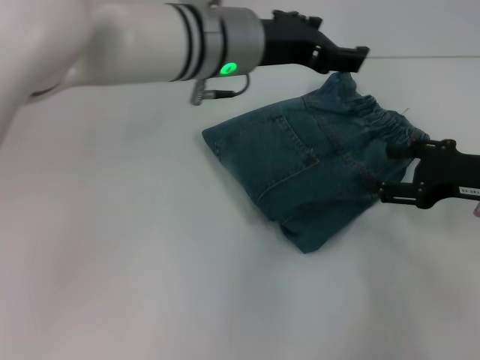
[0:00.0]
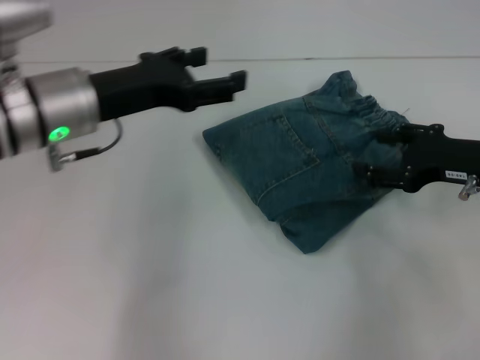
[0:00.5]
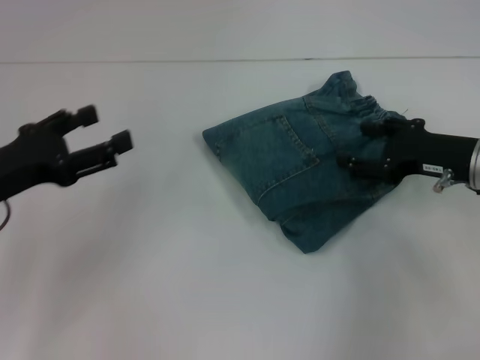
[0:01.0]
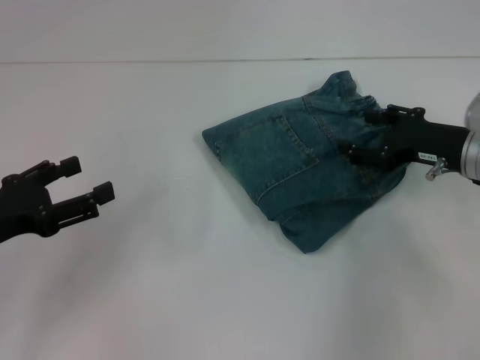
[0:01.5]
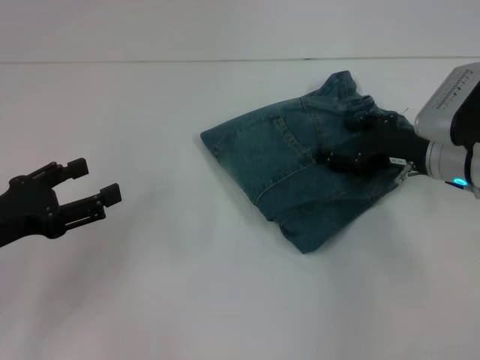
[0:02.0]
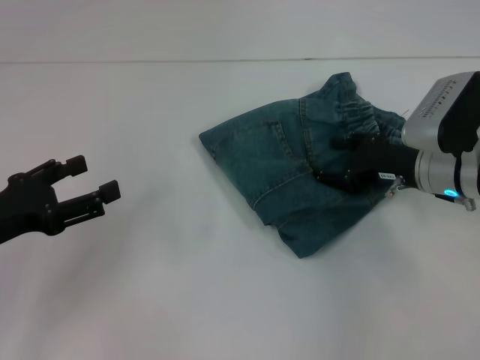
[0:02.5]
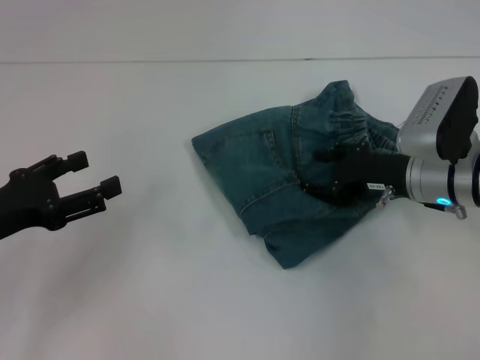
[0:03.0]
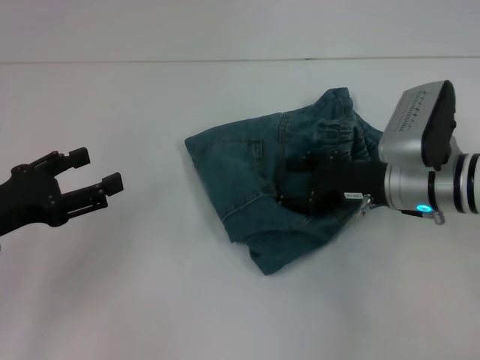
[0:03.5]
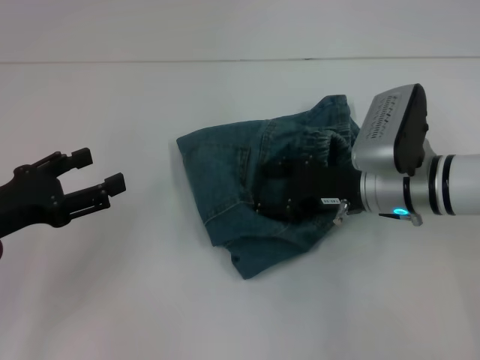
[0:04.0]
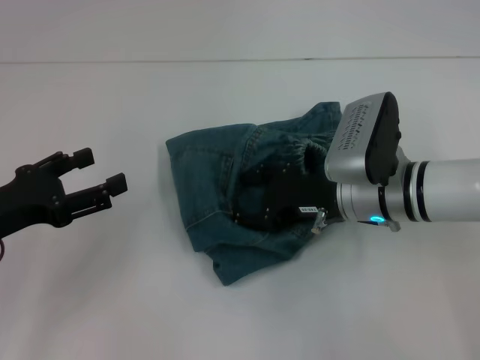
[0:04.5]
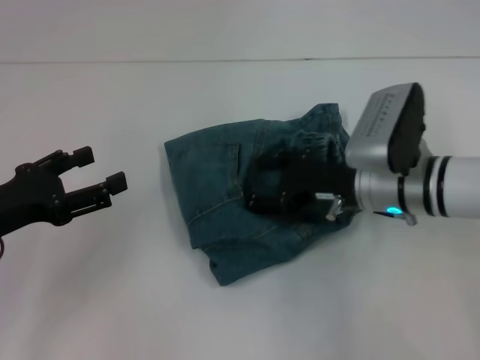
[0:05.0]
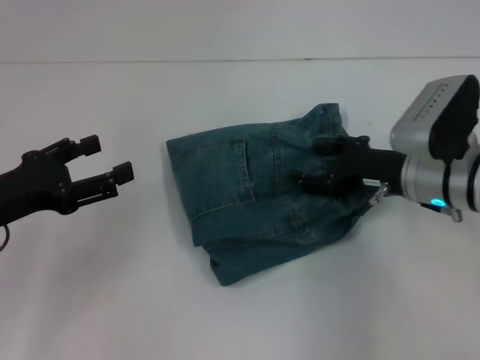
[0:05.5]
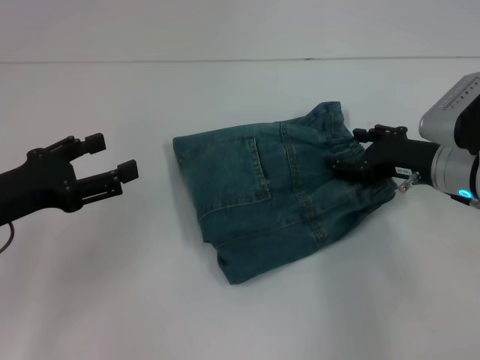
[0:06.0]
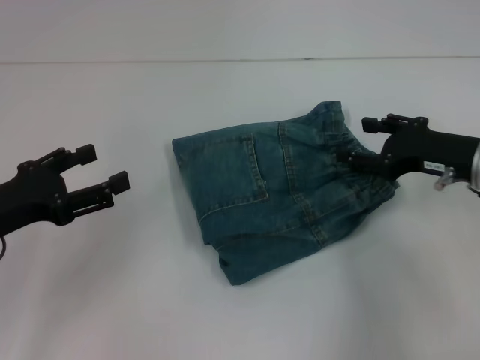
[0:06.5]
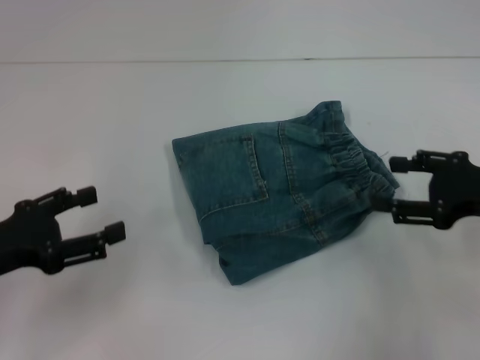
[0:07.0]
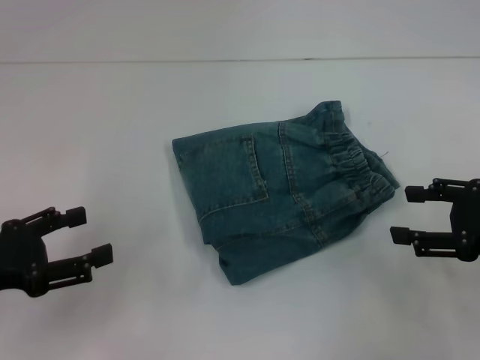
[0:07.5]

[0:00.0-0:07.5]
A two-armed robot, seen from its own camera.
Step, 0:00.0 to 0:05.0: Adjust the pants with your right hand.
0:00.0 to 0:02.0: The left gripper travels to the left, backward and downward by approximately 30 cm, while the right gripper is displaced forward and to the left by approximately 10 cm.
0:02.0 to 0:04.0: The right gripper heads to the left, covering roughly 5 cm.
0:04.0 to 0:05.5: The grippers make only small movements.
0:05.5 to 0:07.5: The right gripper moves to the right and backward, roughly 15 cm; the left gripper shifts by approximately 5 cm.

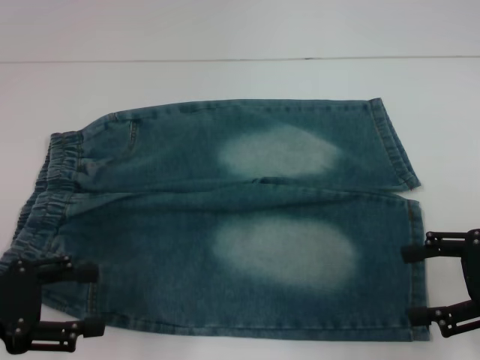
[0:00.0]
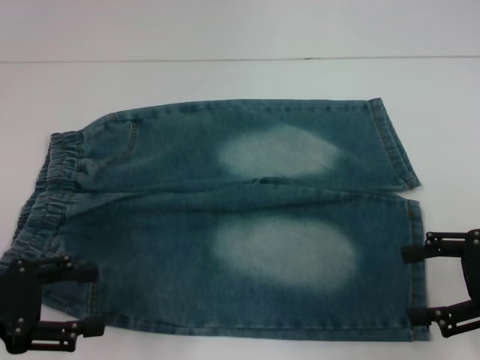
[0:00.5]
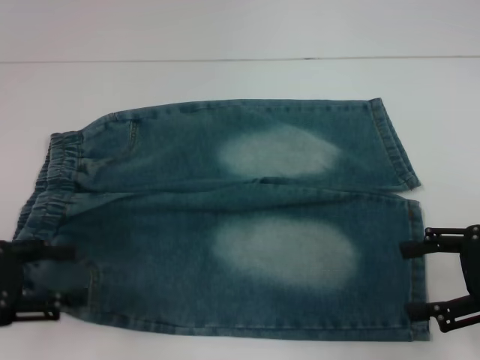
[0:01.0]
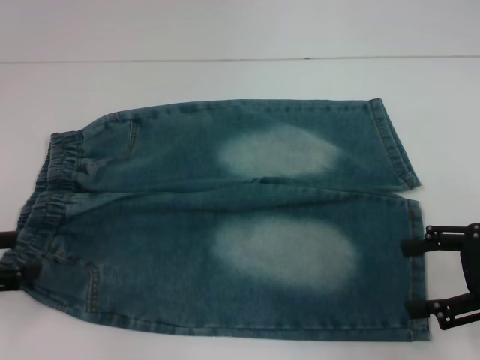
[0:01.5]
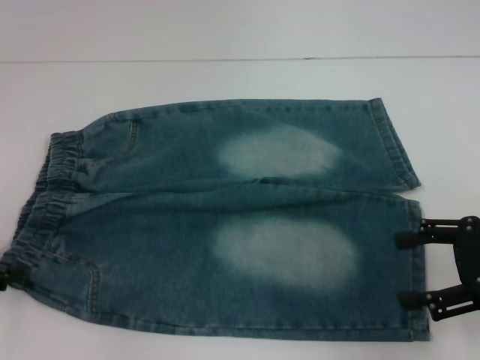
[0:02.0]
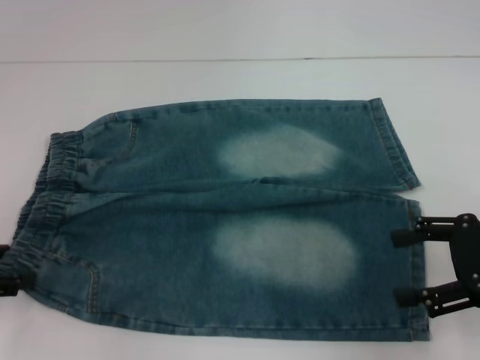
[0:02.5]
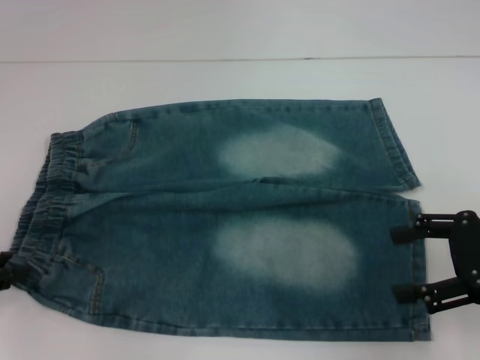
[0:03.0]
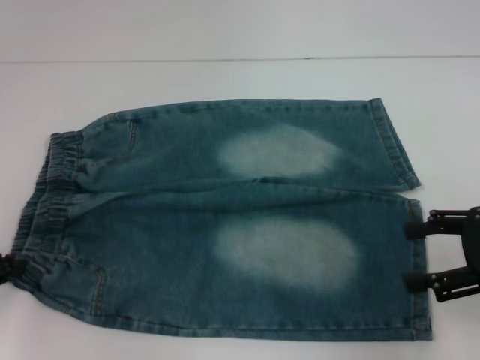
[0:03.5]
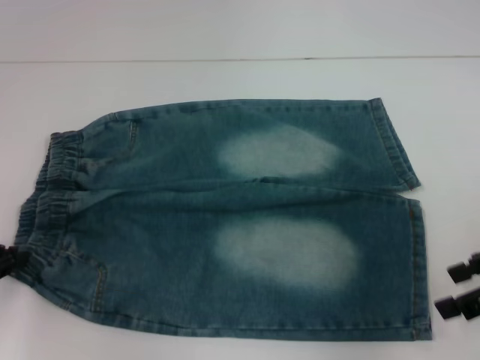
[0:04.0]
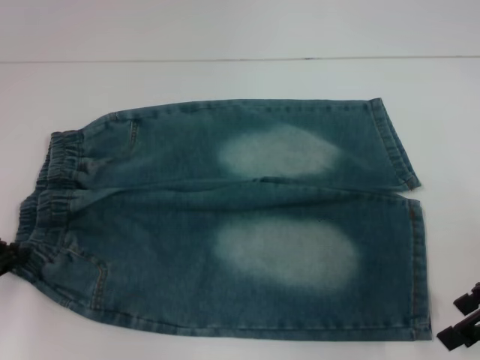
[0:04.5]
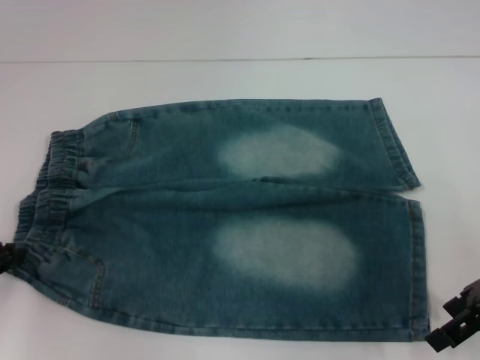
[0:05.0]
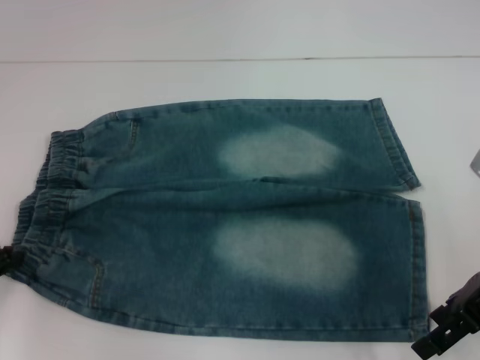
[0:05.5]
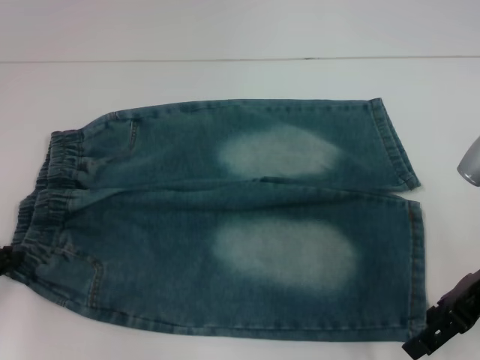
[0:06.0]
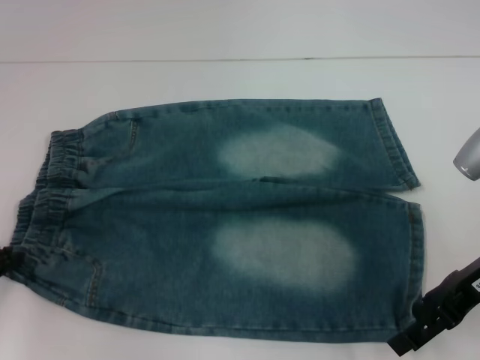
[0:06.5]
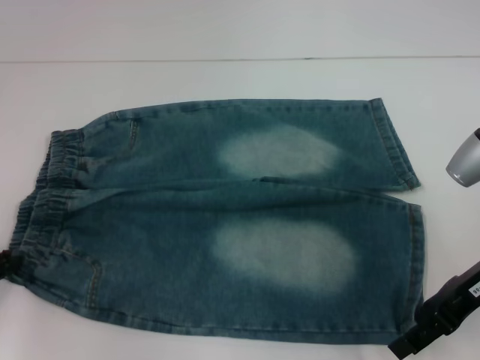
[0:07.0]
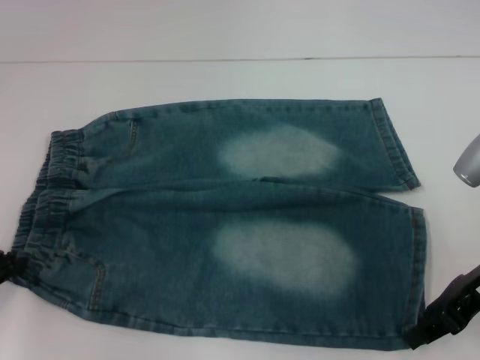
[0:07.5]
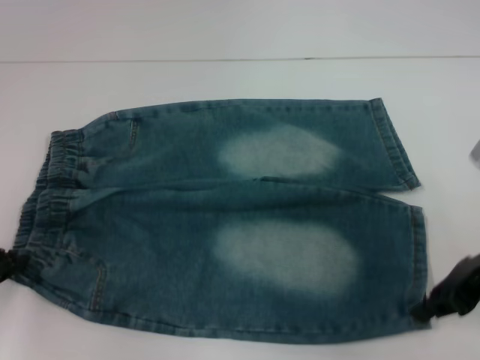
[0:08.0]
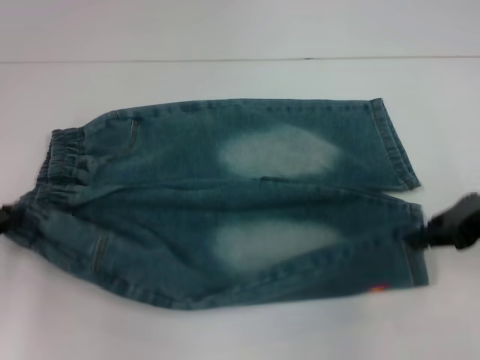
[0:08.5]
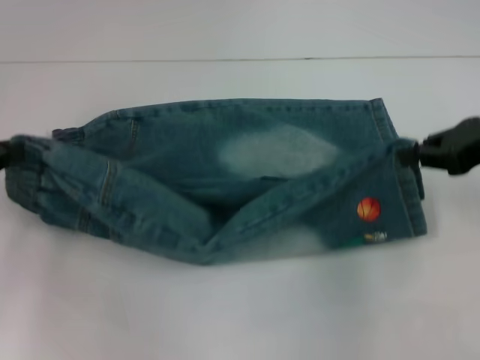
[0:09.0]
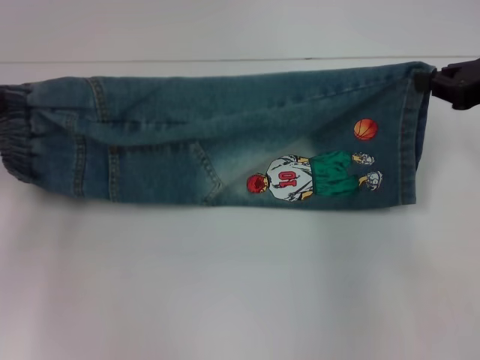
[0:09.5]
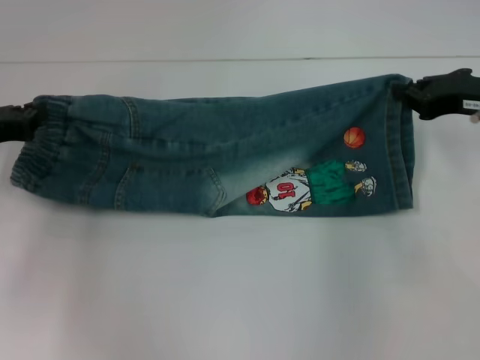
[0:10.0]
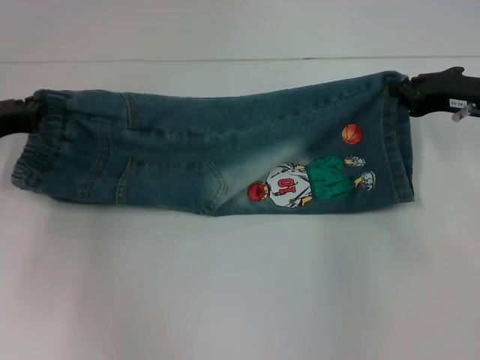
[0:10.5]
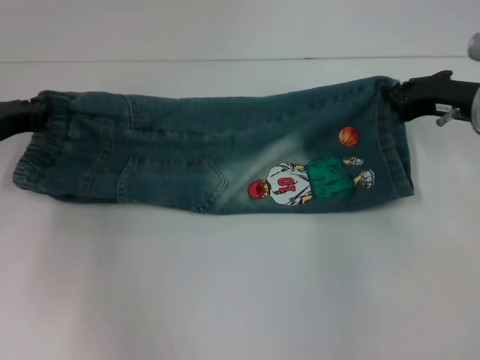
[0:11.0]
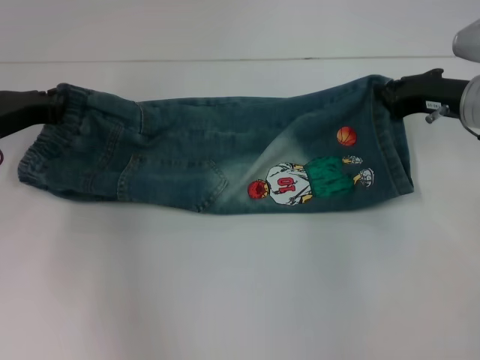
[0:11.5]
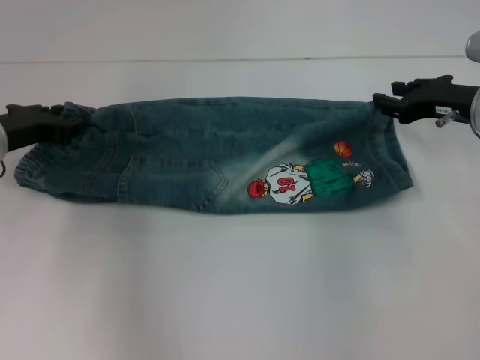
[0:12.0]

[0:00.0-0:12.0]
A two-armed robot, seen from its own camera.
Step, 0:00.0 to 0:03.5: Hold the lower left waistband with your left hand.
Step, 0:04.0 to 0:07.5: Grab the lower right pant leg with your right hand.
0:00.0 to 0:02.0: The left gripper moves to the left, approximately 5 cm.
0:02.0 to 0:04.0: The left gripper closes up.
0:04.0 to 0:06.0: The right gripper shifts some 5 cm to the left.
0:06.0 to 0:08.0: The right gripper closes its fingers.
0:08.0 to 0:10.0: Both grippers travel together forward, some 5 cm.
0:10.0 to 0:12.0: The left gripper ends up approximately 5 cm from where it was.

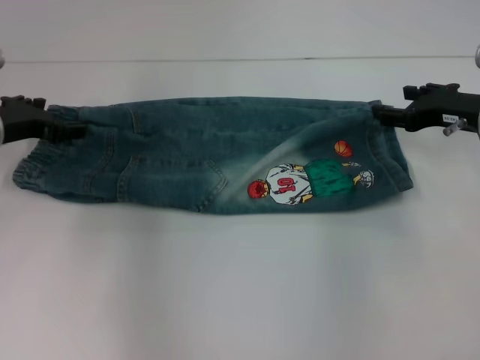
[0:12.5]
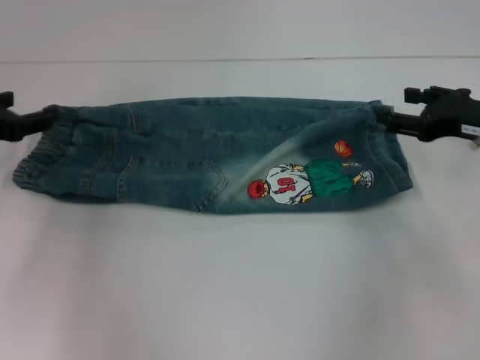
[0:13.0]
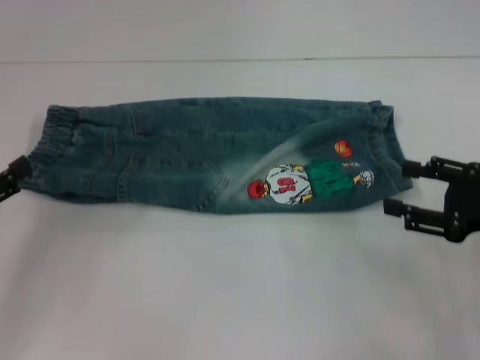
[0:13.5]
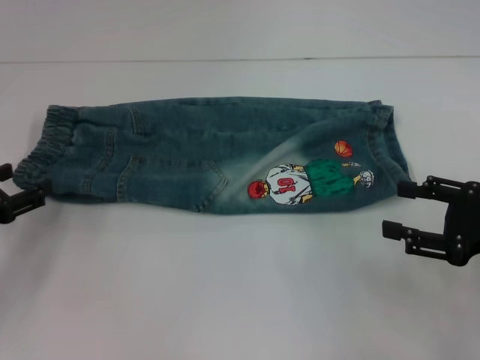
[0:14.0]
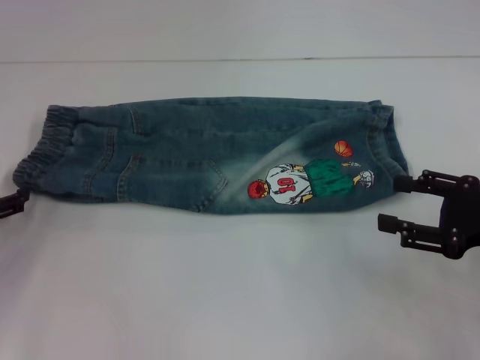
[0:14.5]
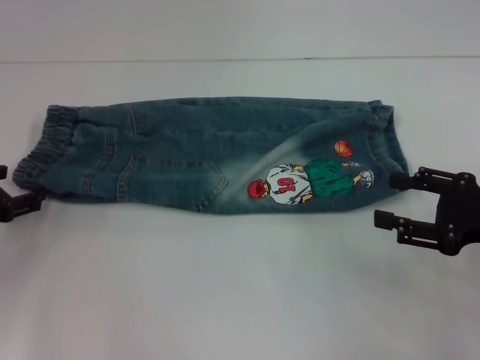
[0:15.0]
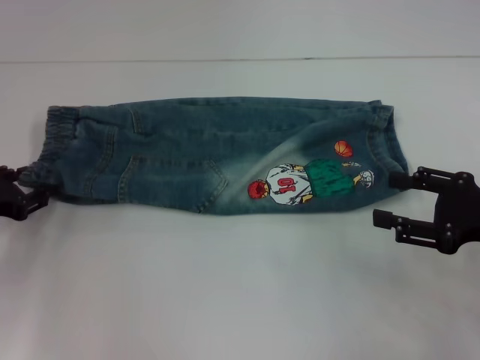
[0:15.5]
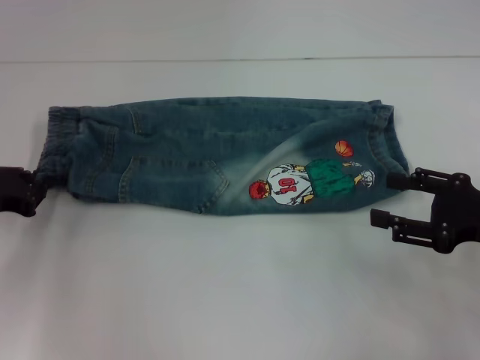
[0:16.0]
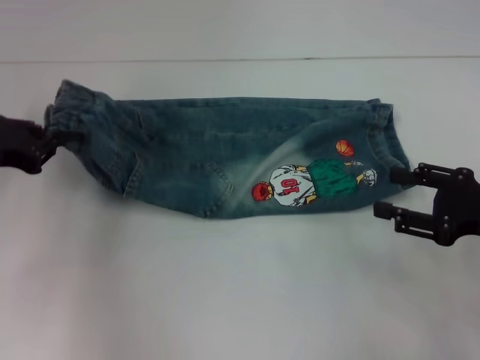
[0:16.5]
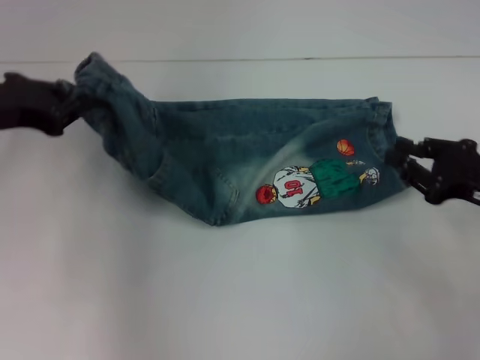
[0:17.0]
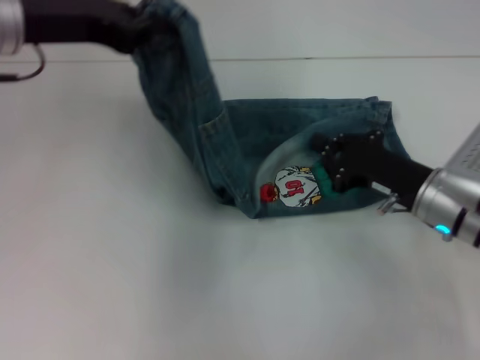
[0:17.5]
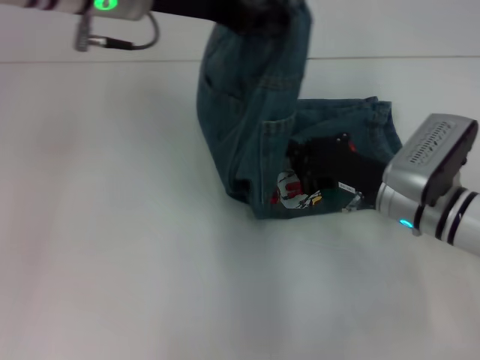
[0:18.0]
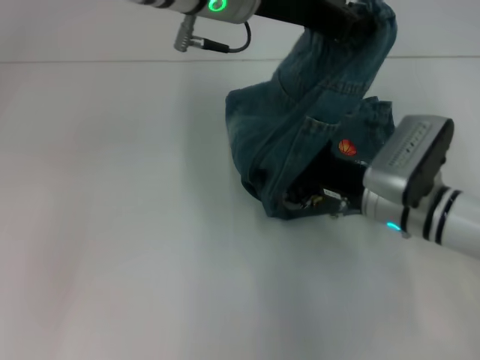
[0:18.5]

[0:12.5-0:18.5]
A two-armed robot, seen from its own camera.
Step, 0:12.5 to 0:16.0: Hold the waistband with your left hand.
Step, 0:16.5 to 0:18.5: Press the middle of the pants with your right hand.
0:12.5 to 0:14.5: The right gripper goes roughly 15 cm backward, while the left gripper shifts roughly 15 cm backward and to the left.
0:14.5 to 0:16.5: The left gripper moves upward and to the right, about 10 cm, and closes.
0:16.5 to 0:18.5: The right gripper travels to the left, forward and downward by roughly 15 cm, and closes its fingers, while the left gripper is displaced to the right and upward by about 30 cm.
